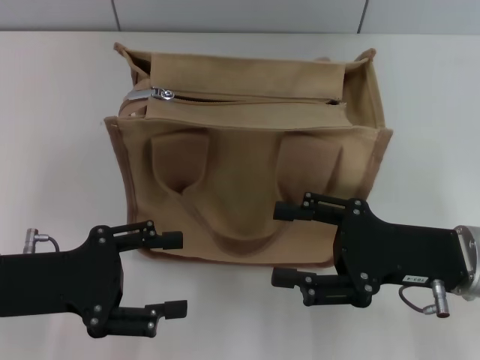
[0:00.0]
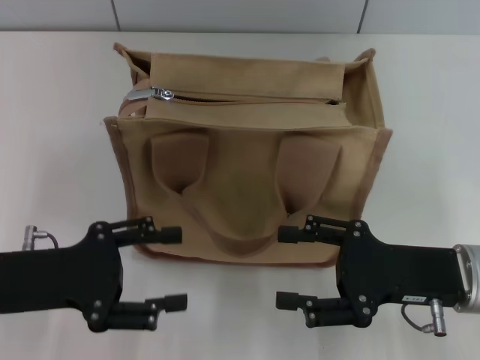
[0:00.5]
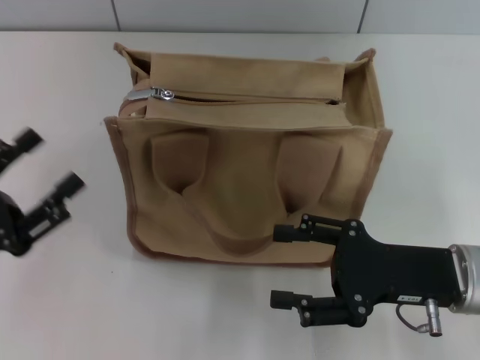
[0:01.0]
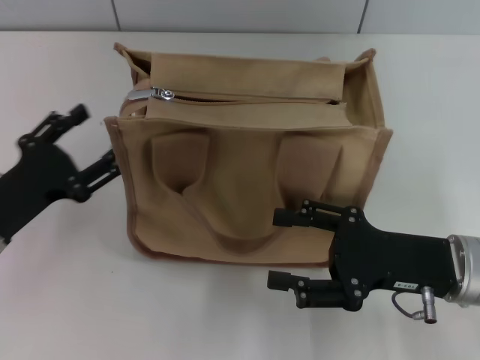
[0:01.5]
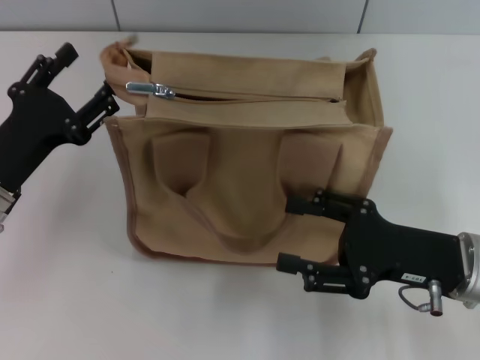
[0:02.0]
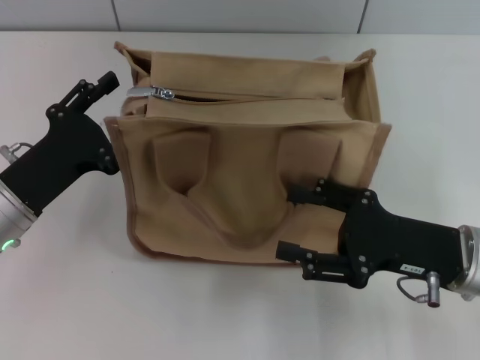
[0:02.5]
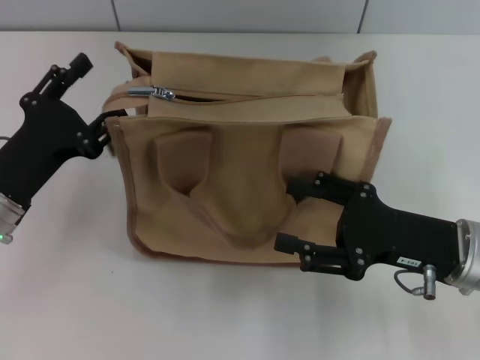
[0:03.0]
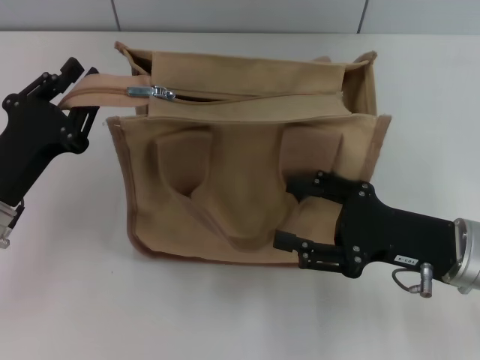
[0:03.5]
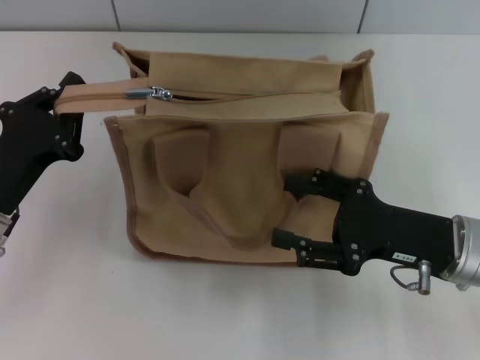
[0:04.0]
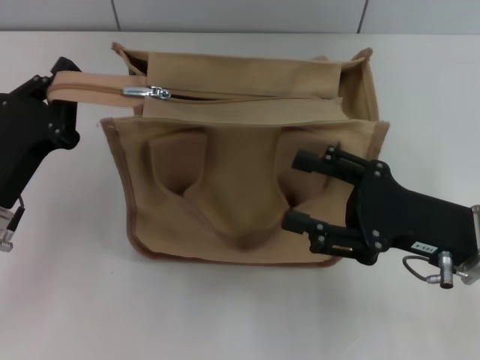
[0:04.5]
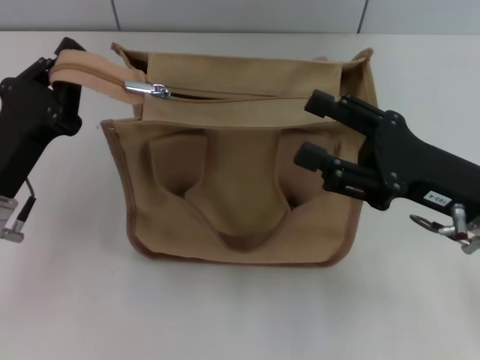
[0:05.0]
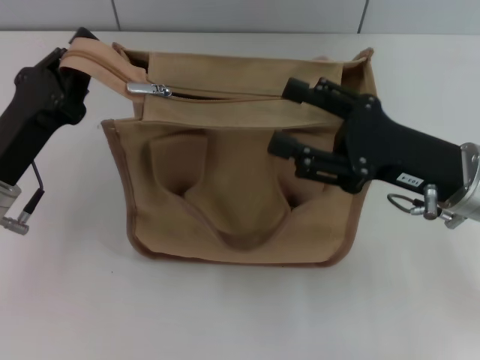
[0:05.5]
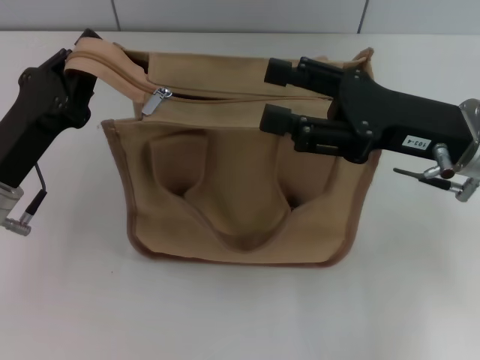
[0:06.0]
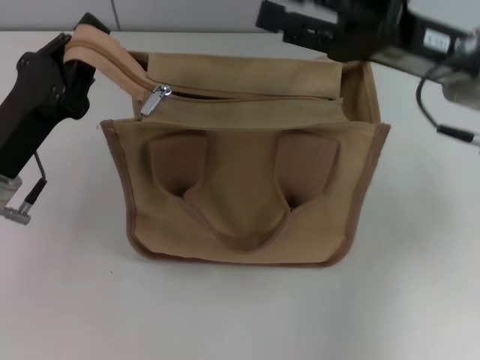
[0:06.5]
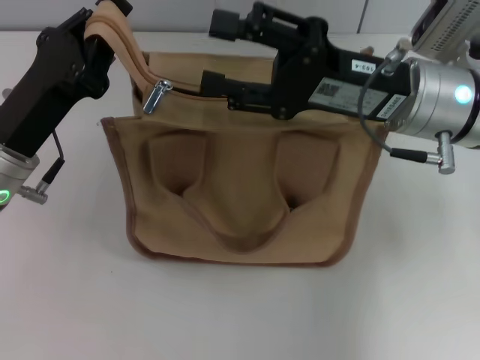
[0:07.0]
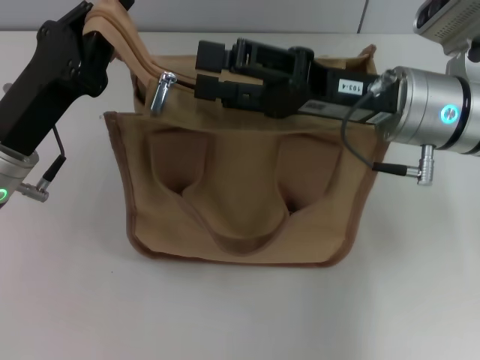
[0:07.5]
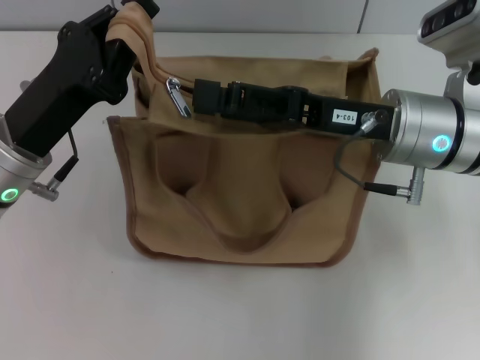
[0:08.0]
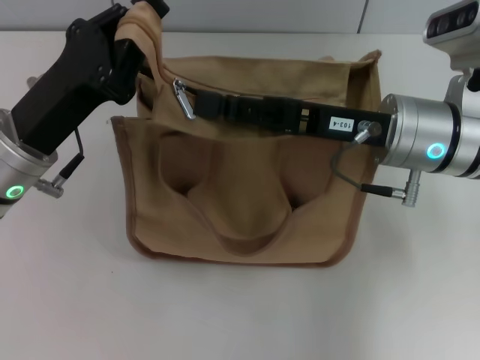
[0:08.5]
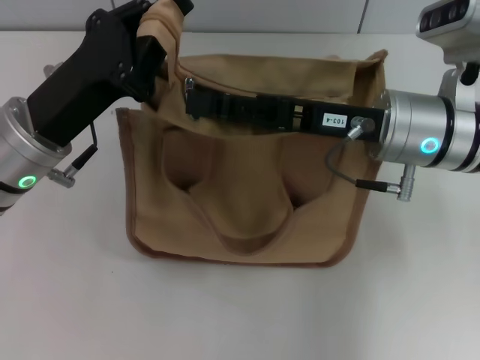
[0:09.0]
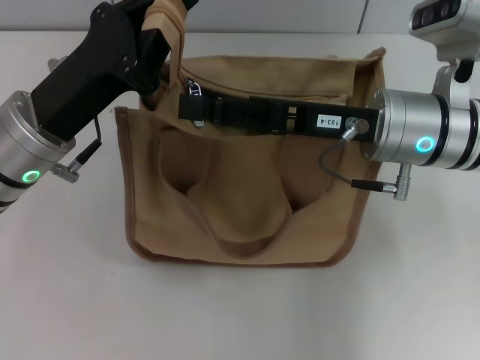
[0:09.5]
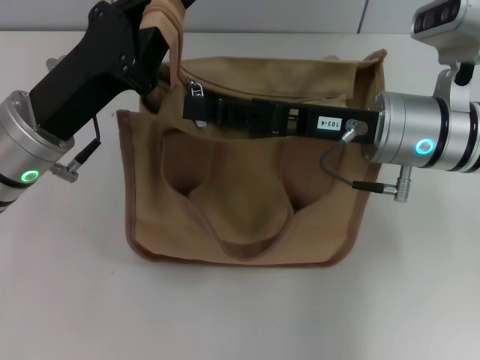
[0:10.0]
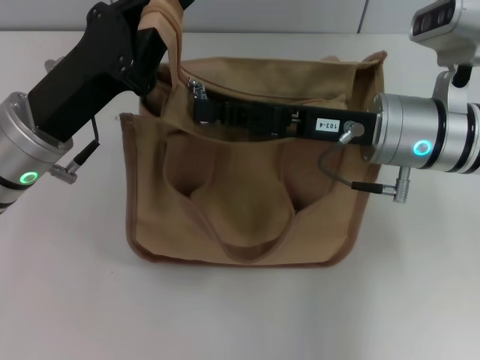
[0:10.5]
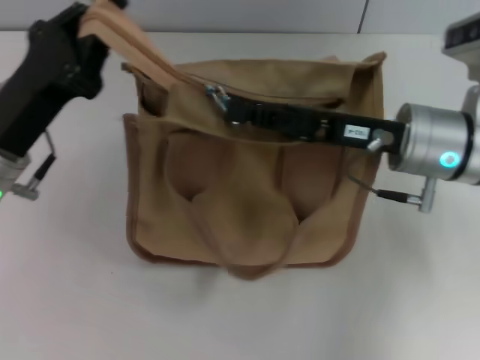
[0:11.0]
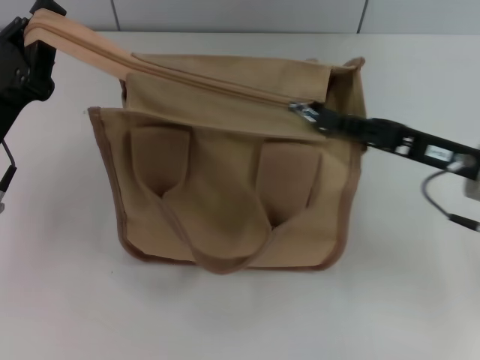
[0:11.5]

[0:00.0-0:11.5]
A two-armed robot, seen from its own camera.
0:00.0 to 0:02.0: The left gripper ends up approximately 5 cm from where it was.
0:02.0 to 0:04.0: The left gripper closes up.
0:04.0 to 0:06.0: The right gripper shifts approximately 10 cm upward and forward.
0:06.0 to 0:07.5: The right gripper moves approximately 5 cm.
0:09.5 to 0:11.5: The left gripper moves to the left, roughly 5 cm; the right gripper goes about 10 cm to the right, and closes.

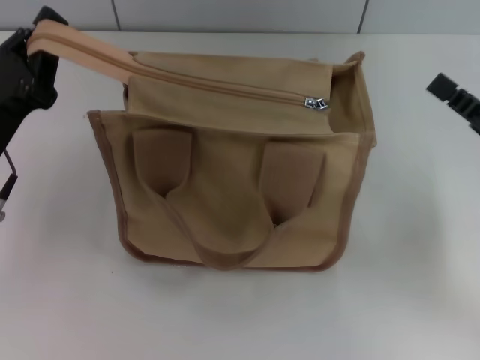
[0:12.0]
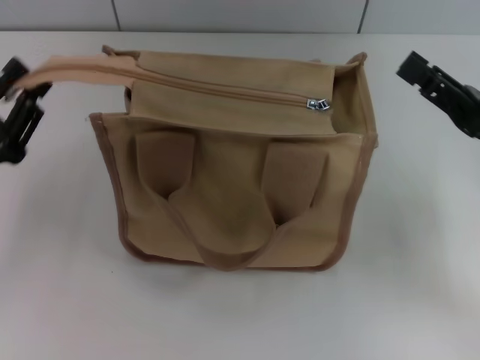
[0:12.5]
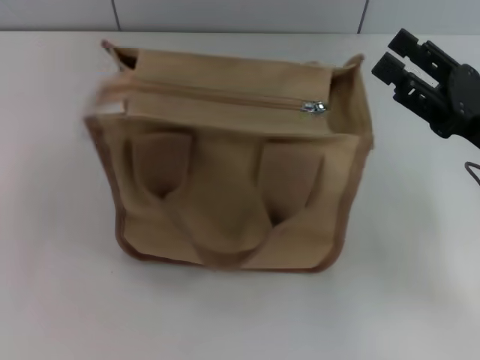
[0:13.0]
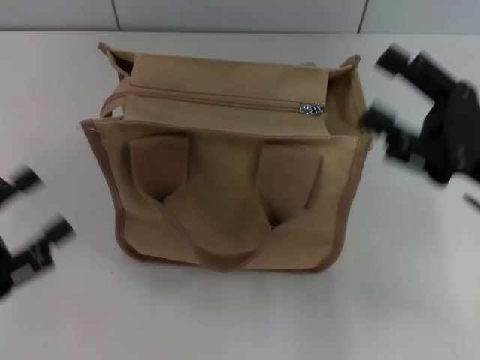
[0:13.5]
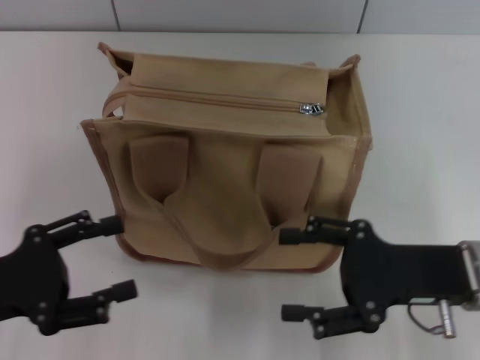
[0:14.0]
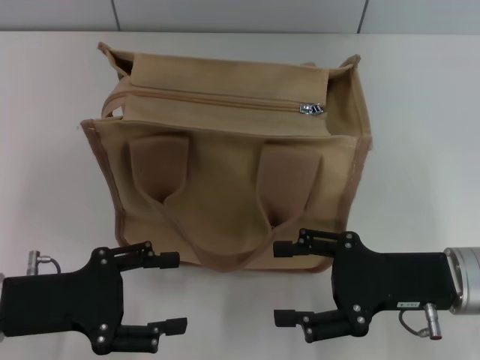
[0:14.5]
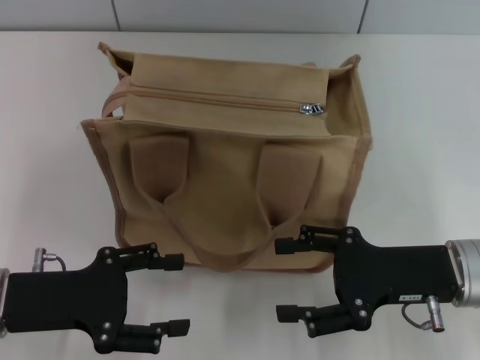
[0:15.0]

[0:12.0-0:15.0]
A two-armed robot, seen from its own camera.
Step, 0:12.5 to 0:13.0: Grab the zipper with your left hand.
0:12.0 to 0:13.5: The right gripper shifts by some 5 cm, and opens. The left gripper travels backward and to the left by about 10 cm, and opens its fingers.
0:13.5 to 0:15.0: The left gripper moves to the right and forward, roughly 10 cm, while the right gripper ends up approximately 5 cm from where it was.

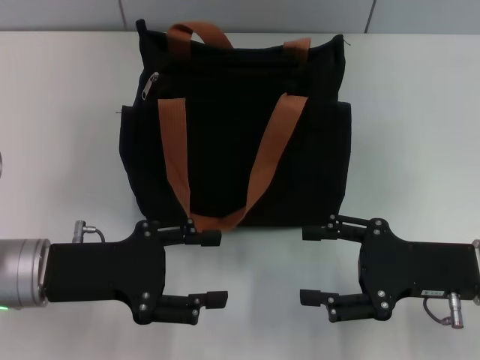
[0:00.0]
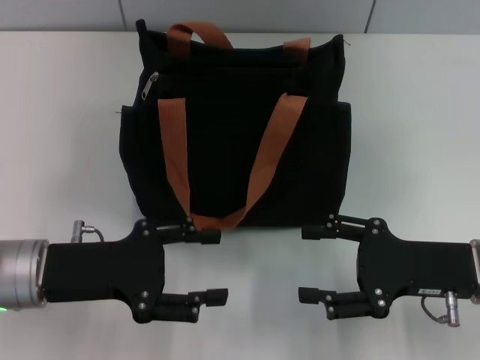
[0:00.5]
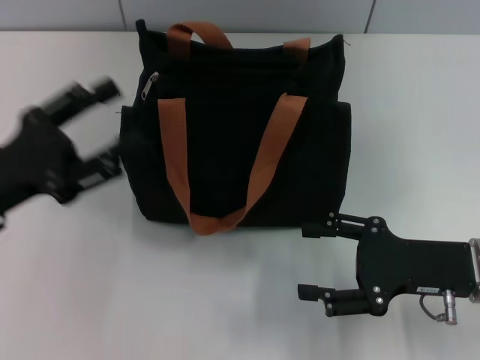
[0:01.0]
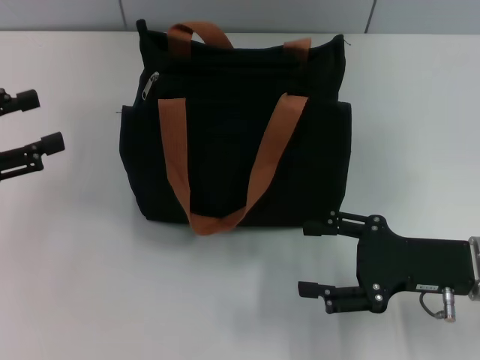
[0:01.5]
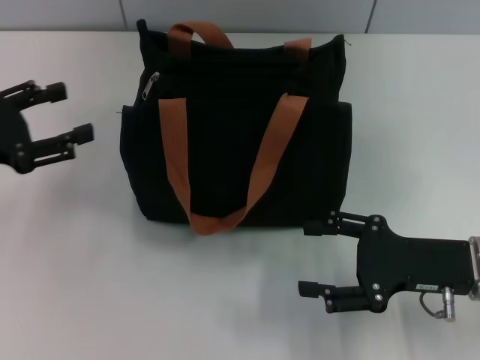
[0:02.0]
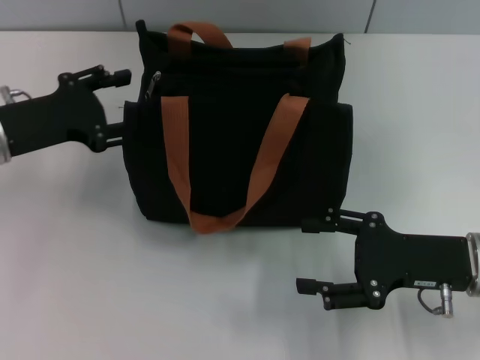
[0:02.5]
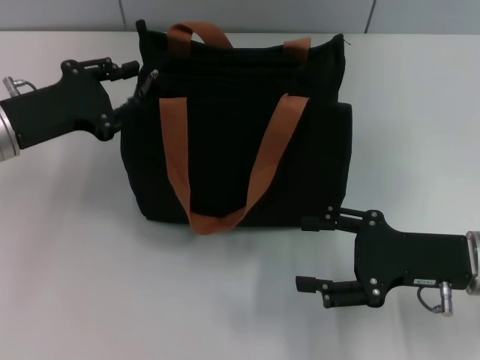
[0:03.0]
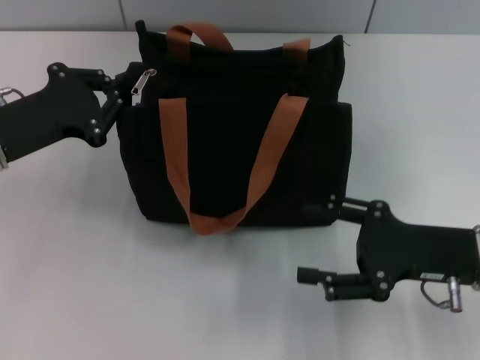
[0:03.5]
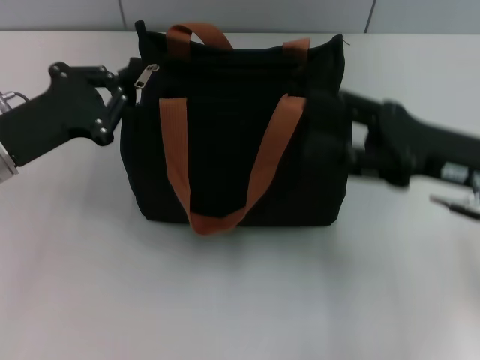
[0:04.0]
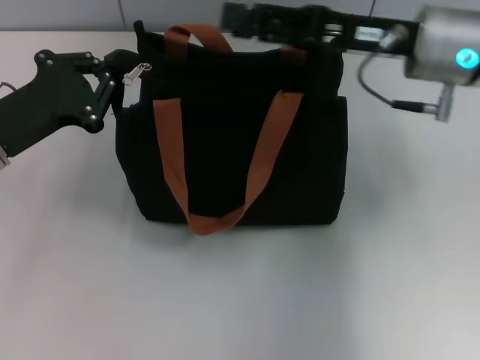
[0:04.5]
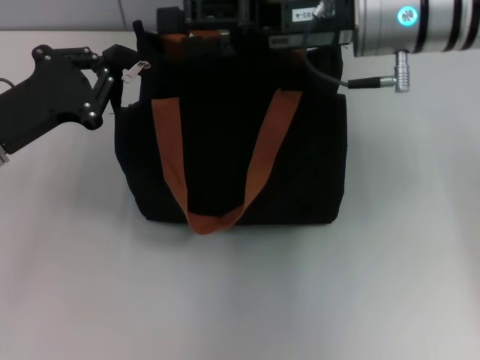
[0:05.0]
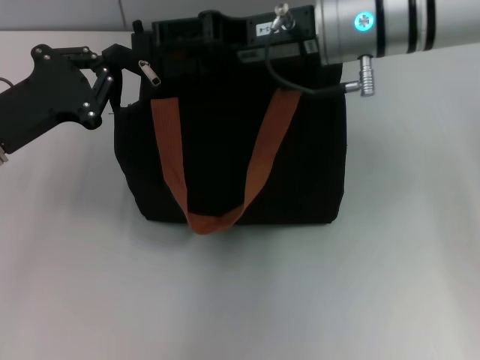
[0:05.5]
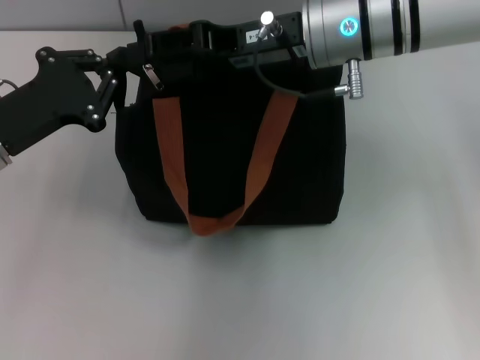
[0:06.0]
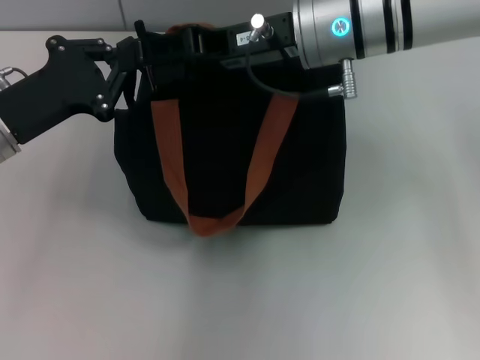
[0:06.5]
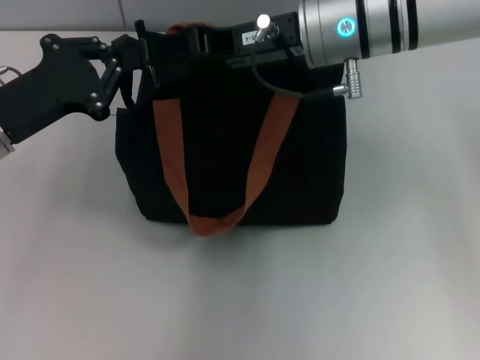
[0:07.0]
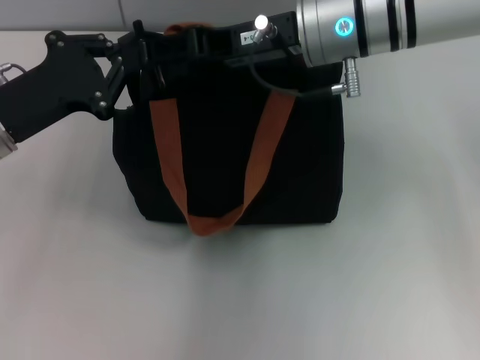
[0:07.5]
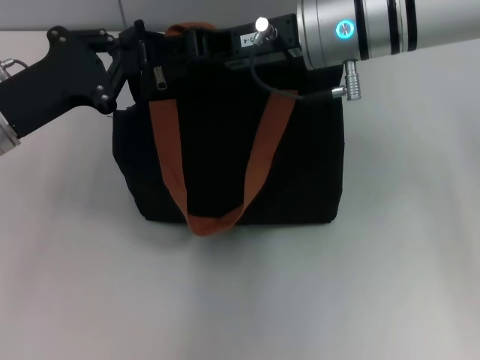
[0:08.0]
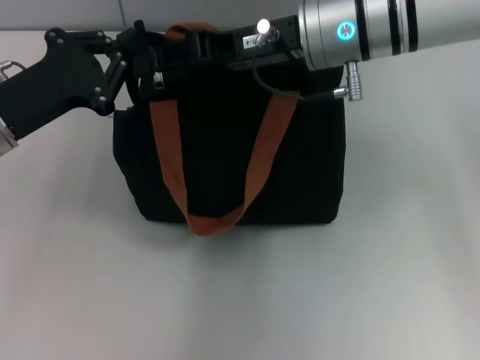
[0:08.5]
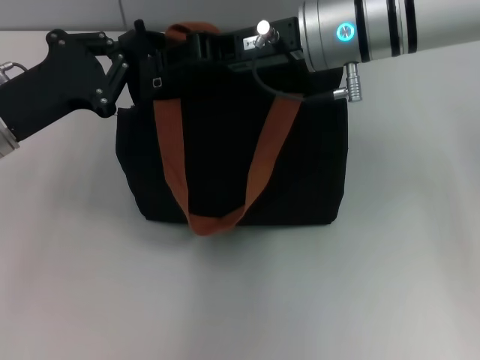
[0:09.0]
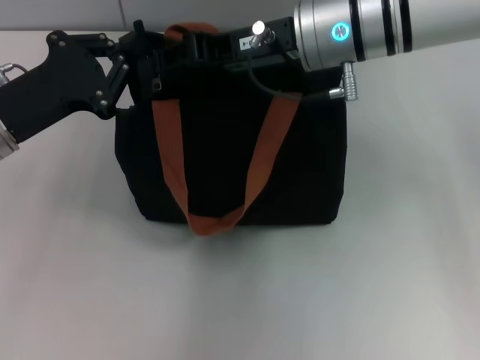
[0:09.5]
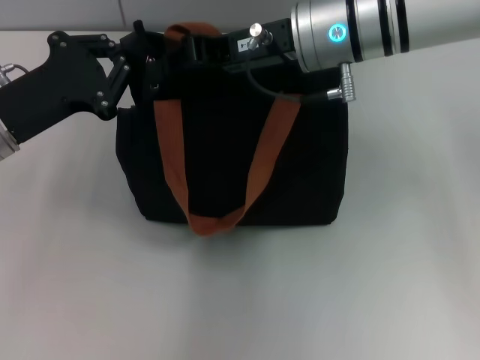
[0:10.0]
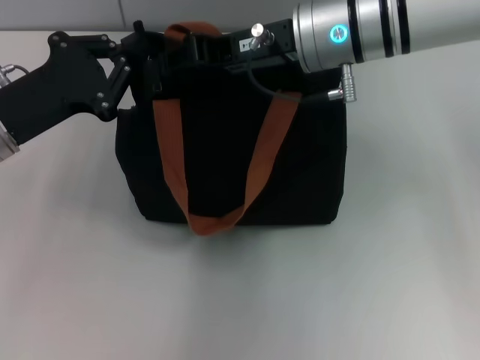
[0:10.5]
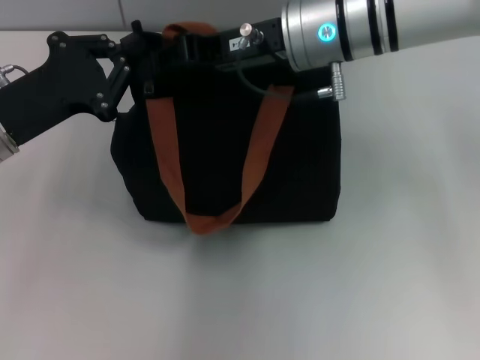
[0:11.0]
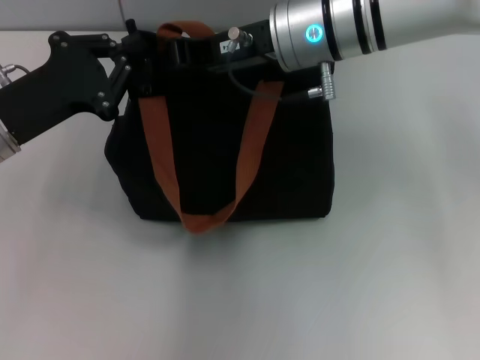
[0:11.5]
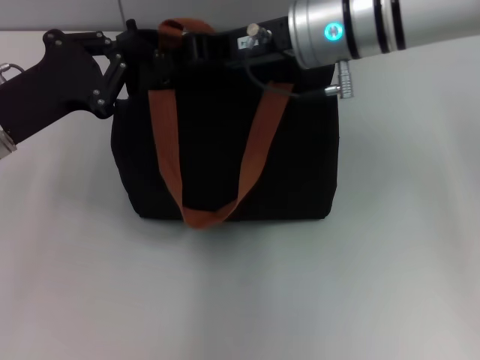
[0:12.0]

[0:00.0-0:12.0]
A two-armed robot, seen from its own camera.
0:00.0 to 0:02.0: The left gripper heads to the left, forward and upward, covering approximately 15 cm.
0:02.0 to 0:04.0: The left gripper moves to the right, roughly 5 cm, and closes its fingers, while the right gripper travels upward by roughly 5 cm.
0:04.0 to 0:06.0: The right gripper shifts about 20 cm to the left, forward and upward.
0:06.0 to 0:08.0: The grippers make only small movements.
0:08.0 to 0:10.0: The right gripper closes up.
0:10.0 to 0:12.0: The grippers move only a little.
